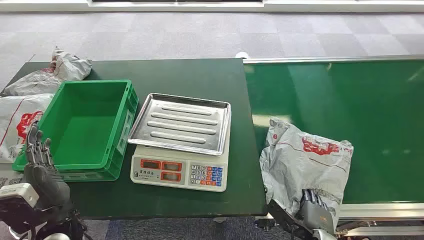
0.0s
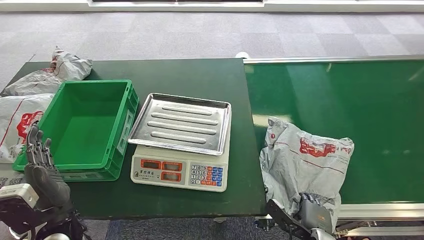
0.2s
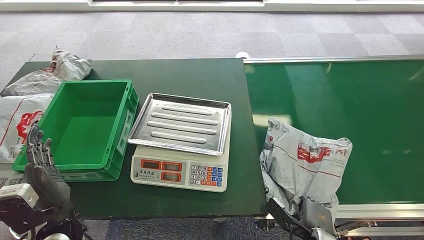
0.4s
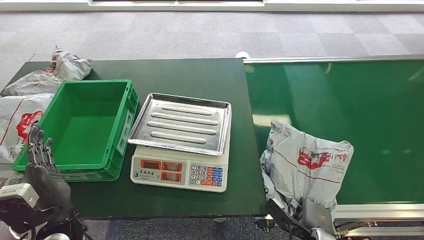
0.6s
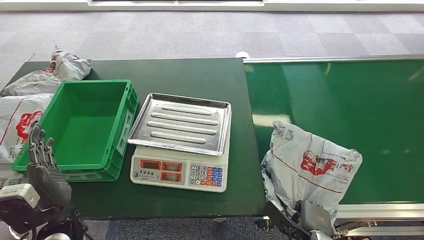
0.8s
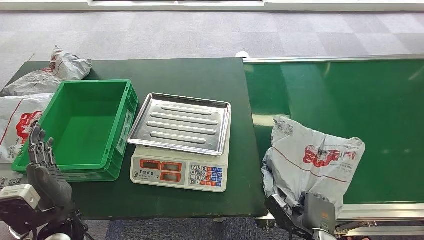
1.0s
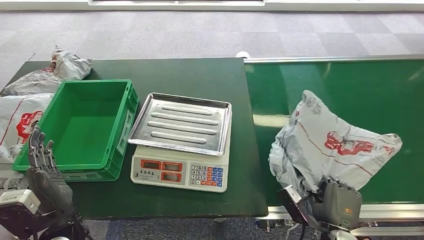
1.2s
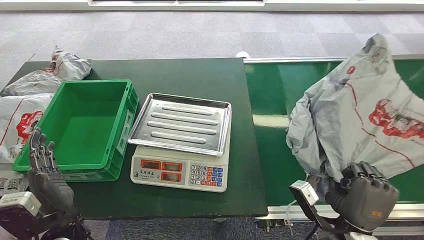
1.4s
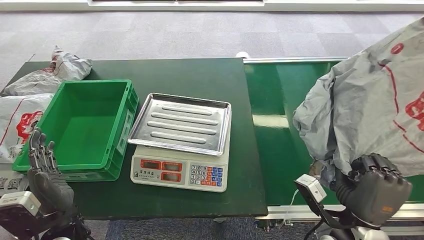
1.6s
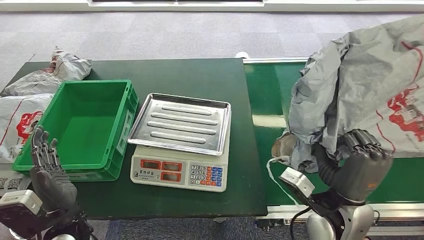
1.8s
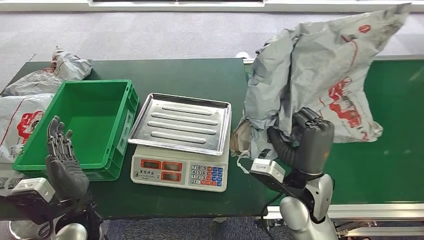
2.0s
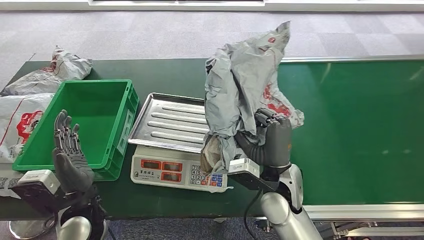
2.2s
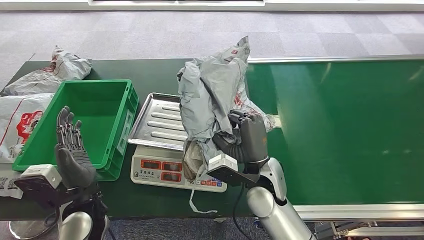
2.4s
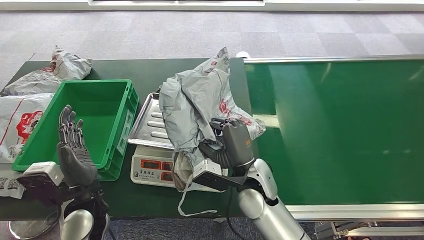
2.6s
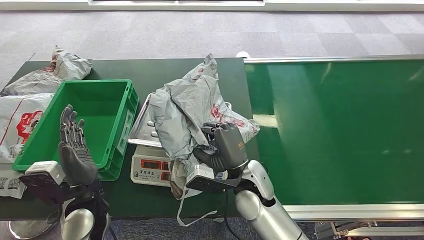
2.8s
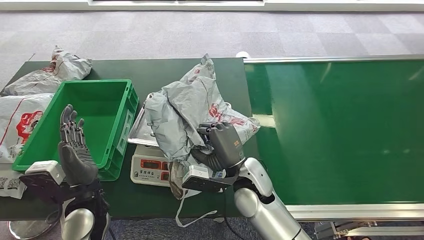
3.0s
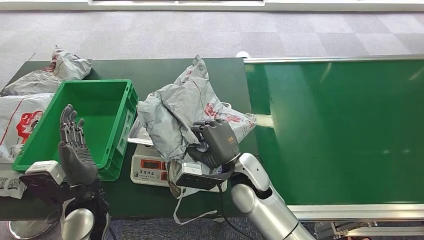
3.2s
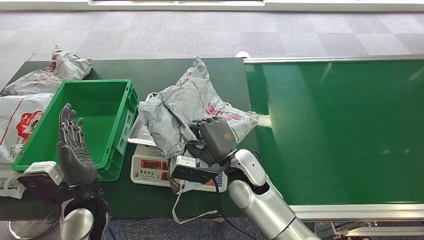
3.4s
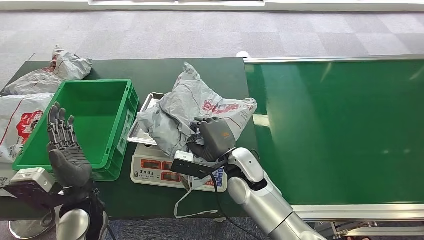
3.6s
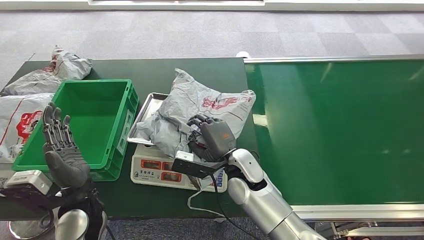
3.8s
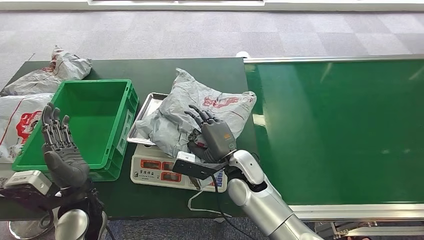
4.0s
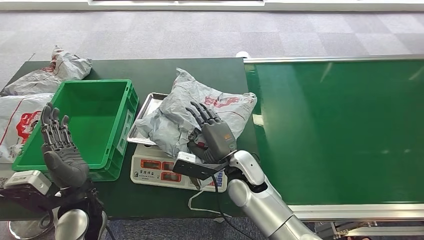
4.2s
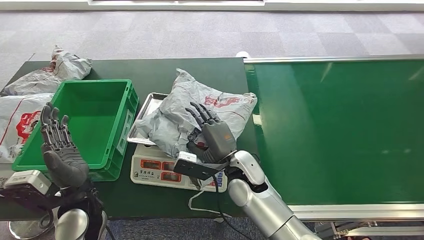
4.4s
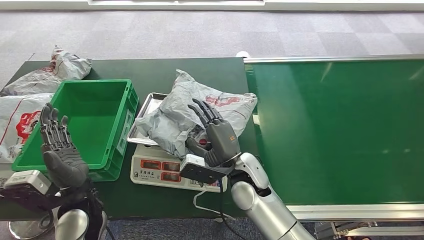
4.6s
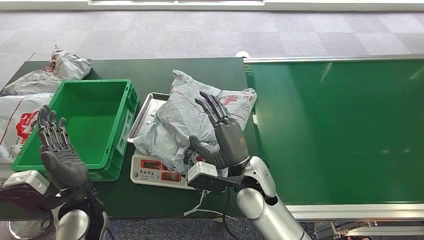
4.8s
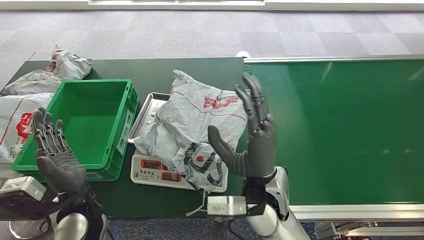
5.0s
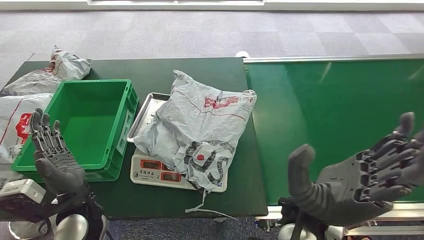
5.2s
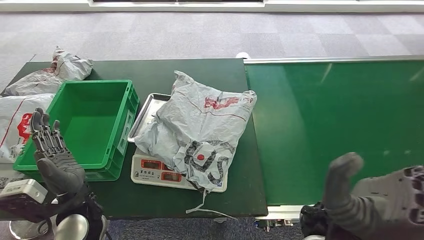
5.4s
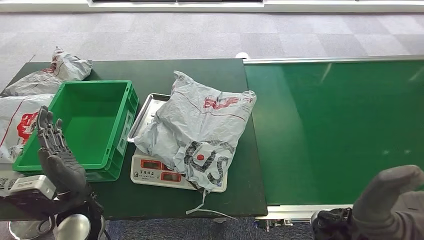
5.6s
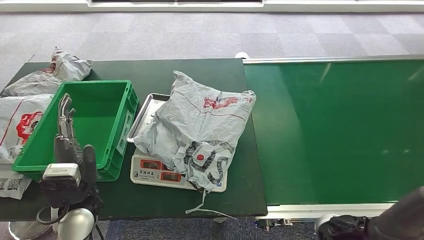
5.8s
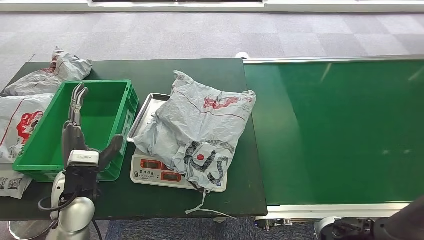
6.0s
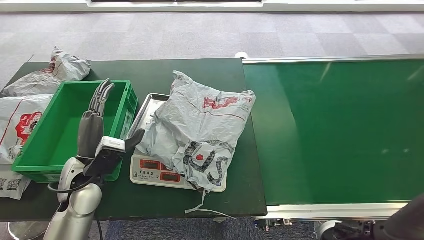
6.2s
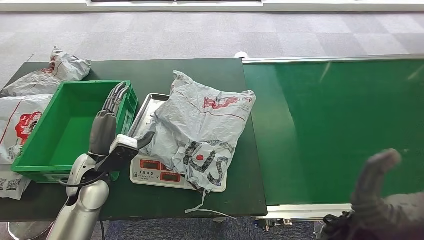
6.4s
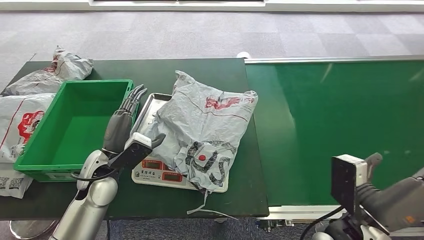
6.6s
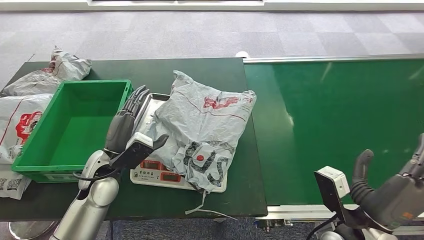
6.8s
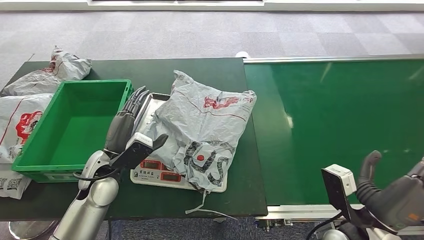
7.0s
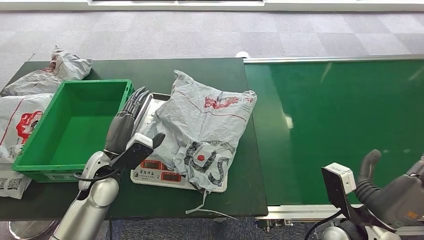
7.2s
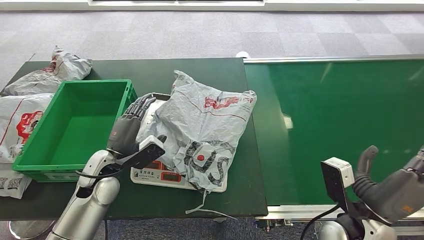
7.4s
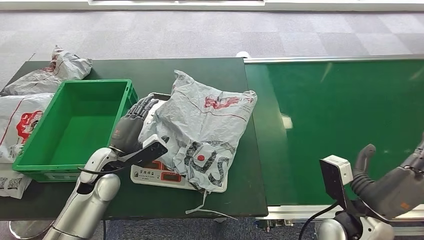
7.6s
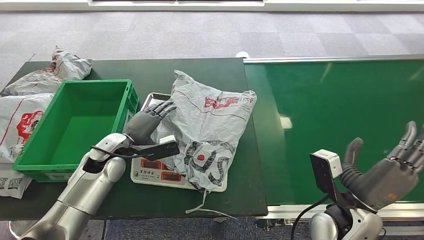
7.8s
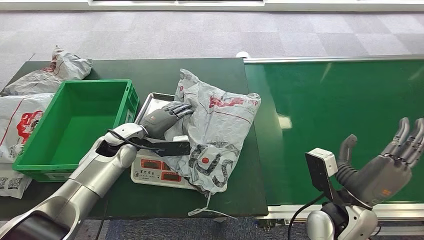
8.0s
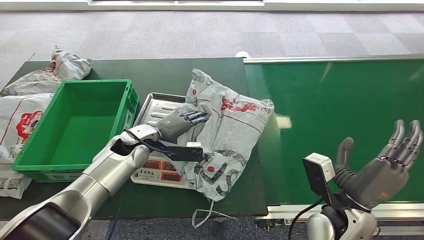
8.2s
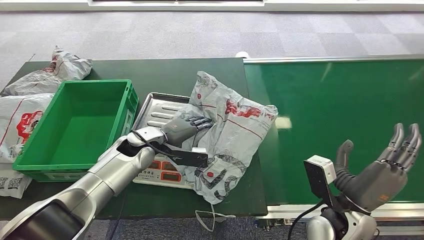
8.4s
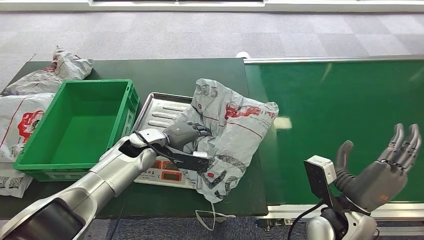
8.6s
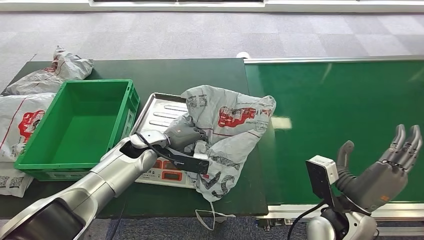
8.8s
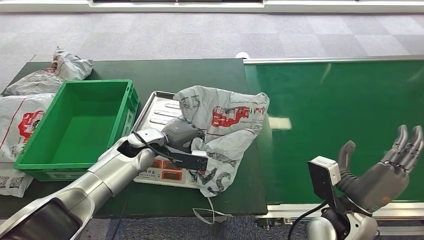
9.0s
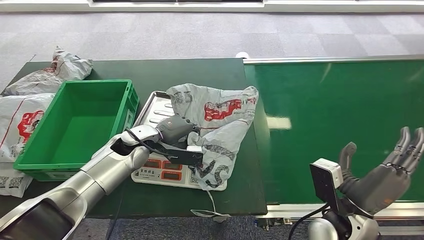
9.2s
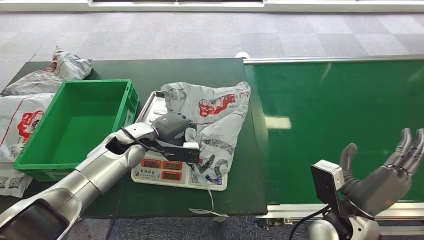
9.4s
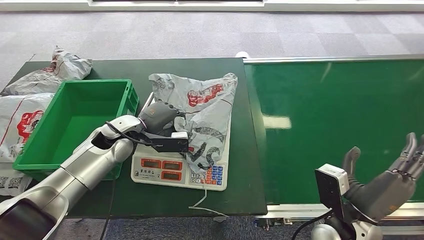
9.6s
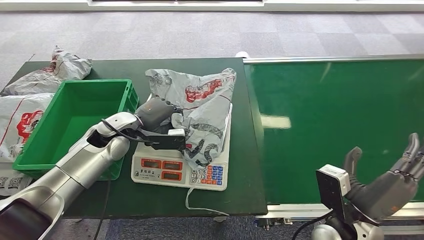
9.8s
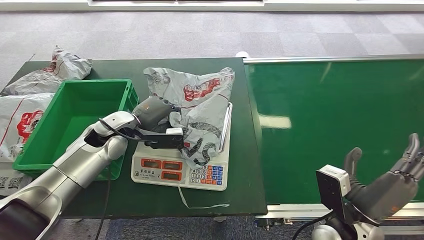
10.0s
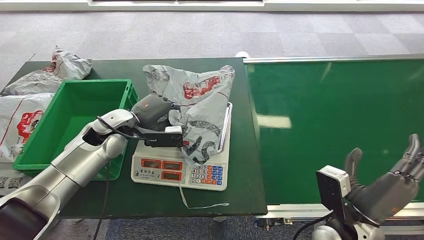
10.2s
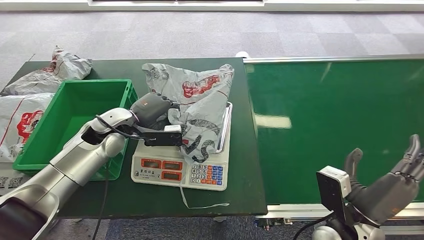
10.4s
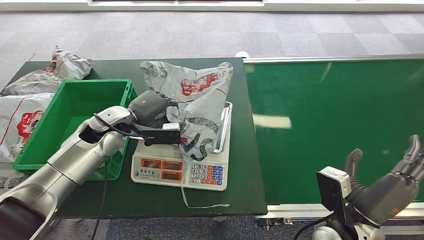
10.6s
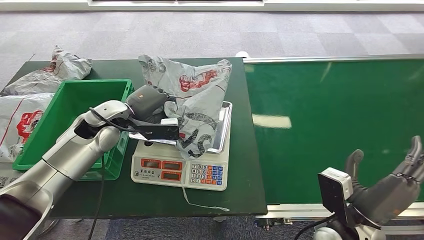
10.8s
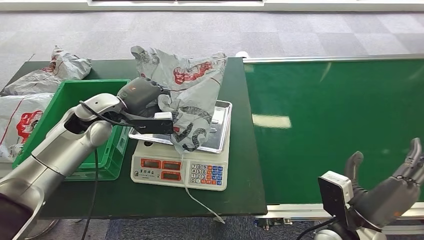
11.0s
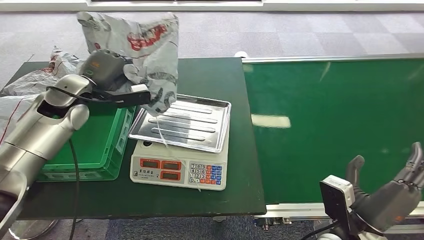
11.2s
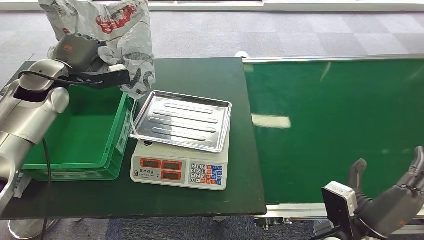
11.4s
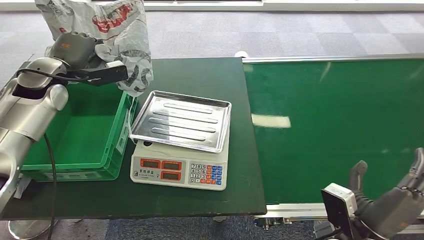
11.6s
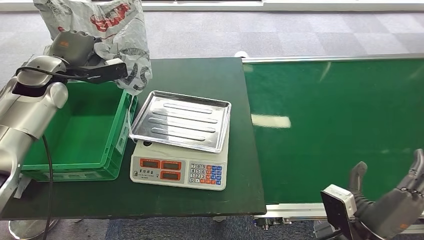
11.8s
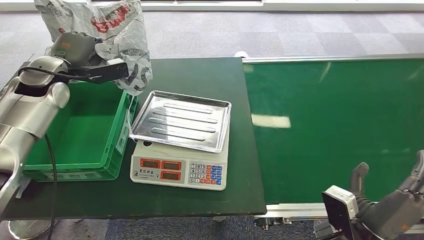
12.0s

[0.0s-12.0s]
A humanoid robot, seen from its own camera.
Step, 0.0s to 2.0s: Pick up the package from the conveyor belt.
Step, 2.2s to 5.6s: Place the package onto the inbound machine.
Step, 5.8s to 11.6s: Pick up the package from the inbound machine.
3.0s to 4.4s: The hands move only a little.
6.0s to 7.6s: The left hand heads forward, covering some 5 cm. The right hand moves downward and to the right, roughly 15 cm.

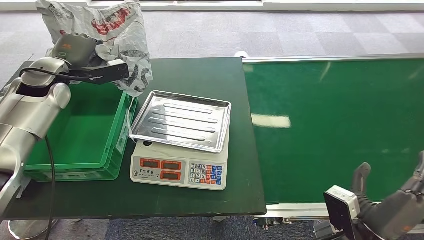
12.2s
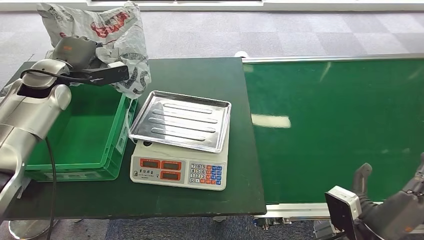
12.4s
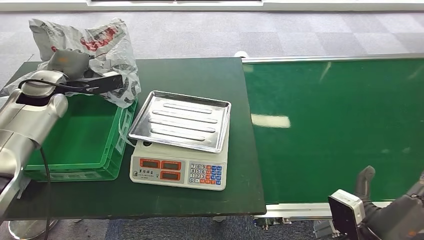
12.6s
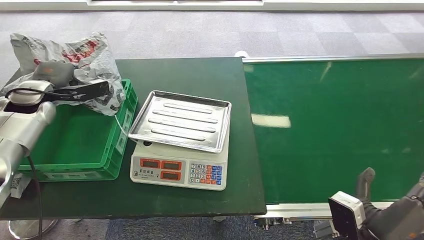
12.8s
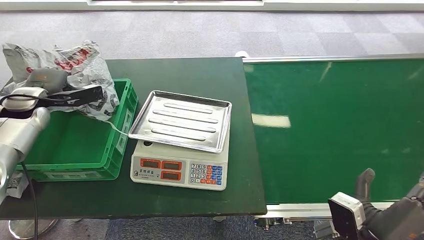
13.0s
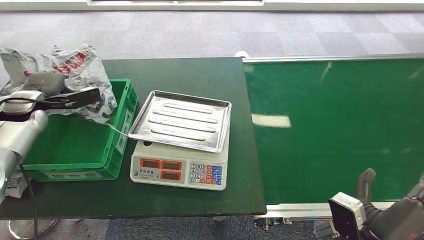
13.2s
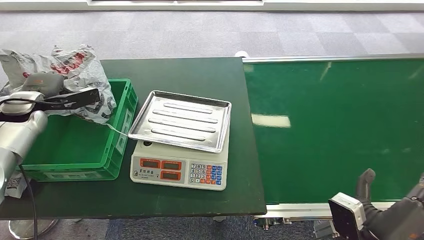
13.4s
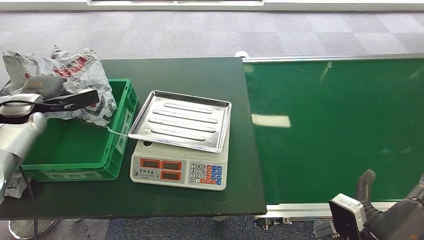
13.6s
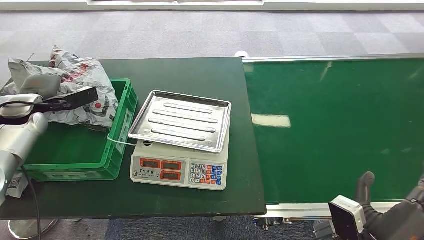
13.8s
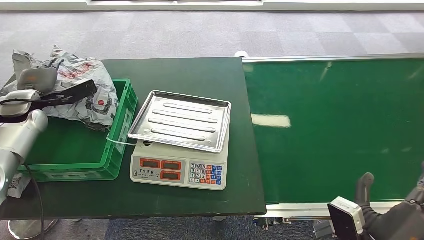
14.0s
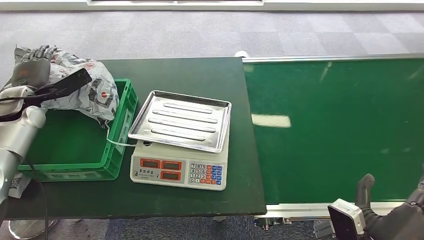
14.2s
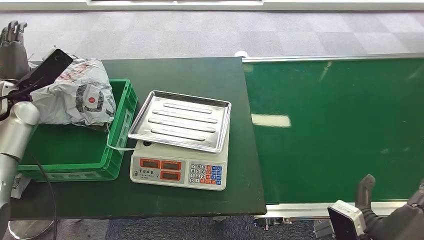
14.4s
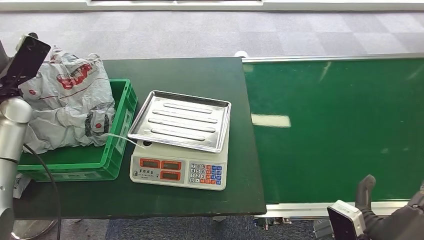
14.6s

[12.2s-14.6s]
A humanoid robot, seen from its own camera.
Step, 12.2s to 14.6s: Place the package into the parcel locker.
12.2s to 13.4s: The left hand moves to the left and downward, some 10 cm.
13.4s to 14.6s: The left hand moves approximately 5 cm.
